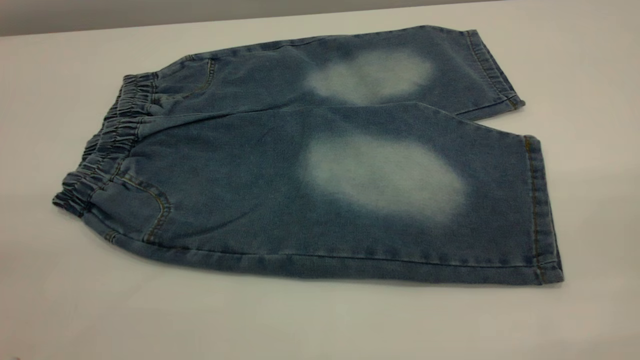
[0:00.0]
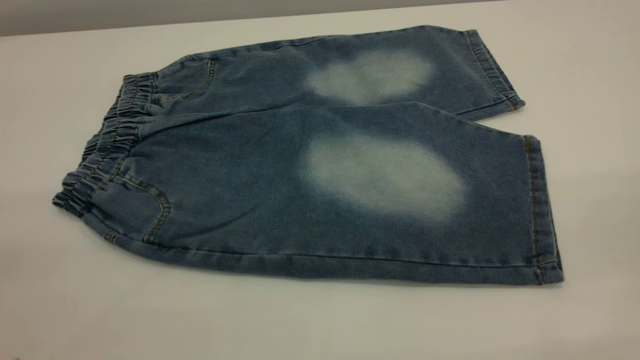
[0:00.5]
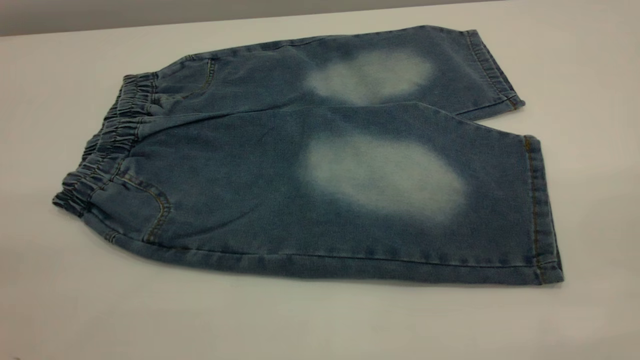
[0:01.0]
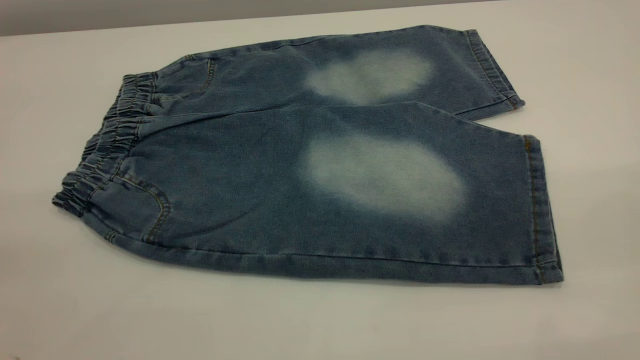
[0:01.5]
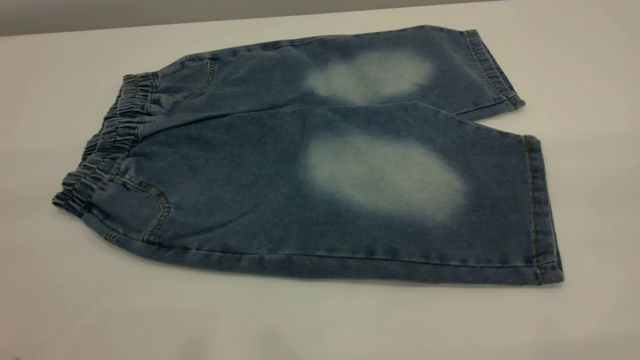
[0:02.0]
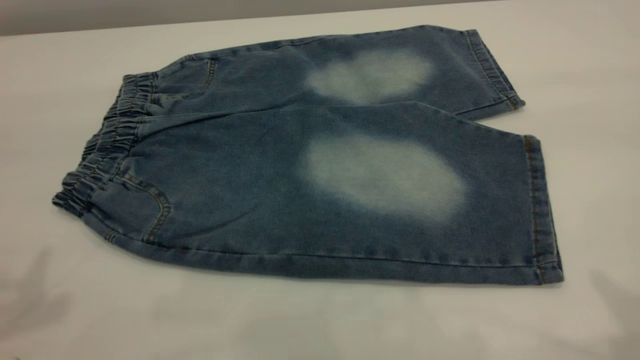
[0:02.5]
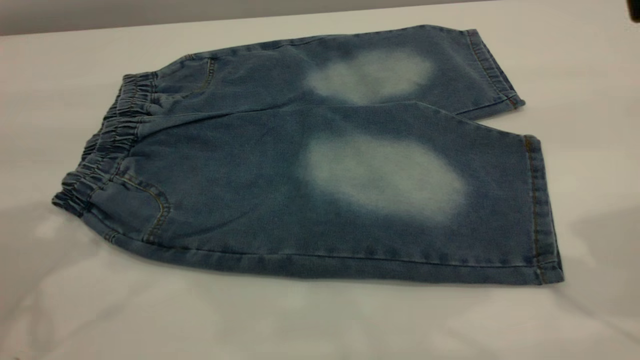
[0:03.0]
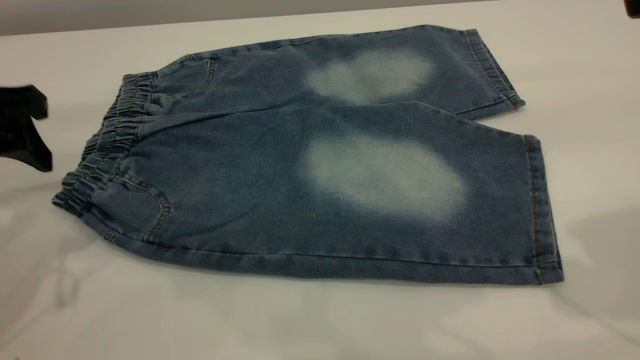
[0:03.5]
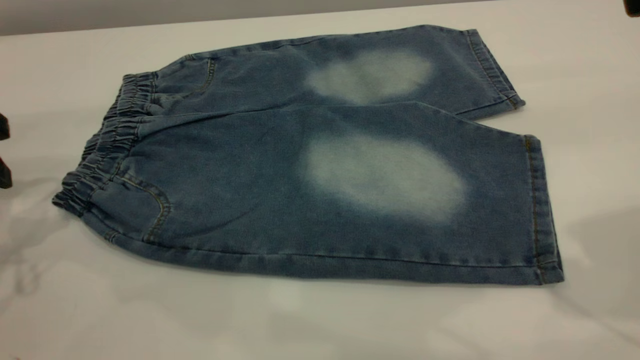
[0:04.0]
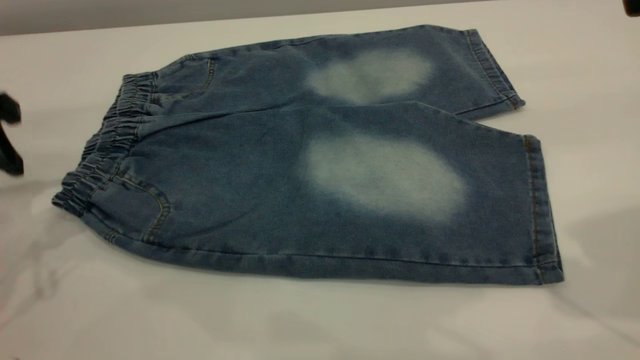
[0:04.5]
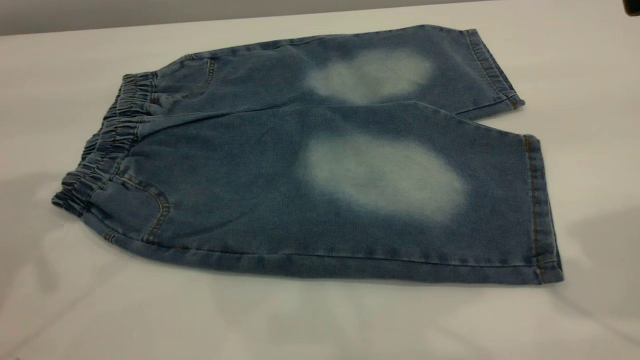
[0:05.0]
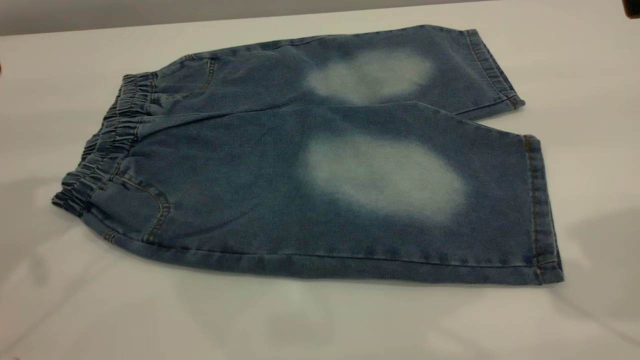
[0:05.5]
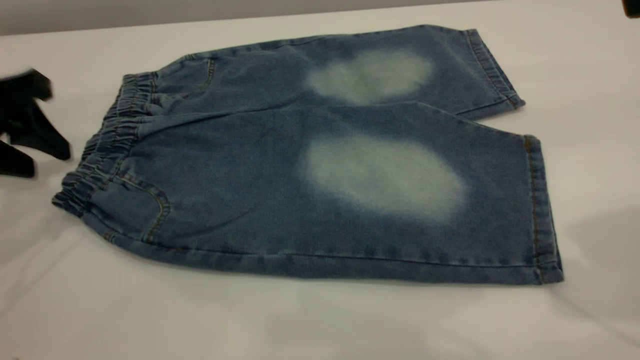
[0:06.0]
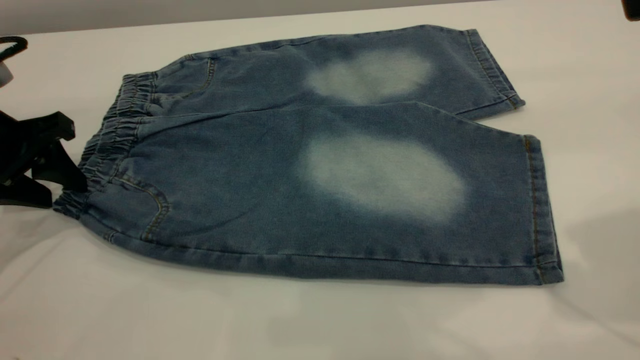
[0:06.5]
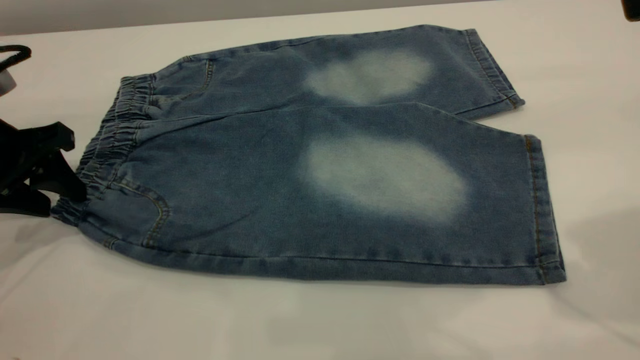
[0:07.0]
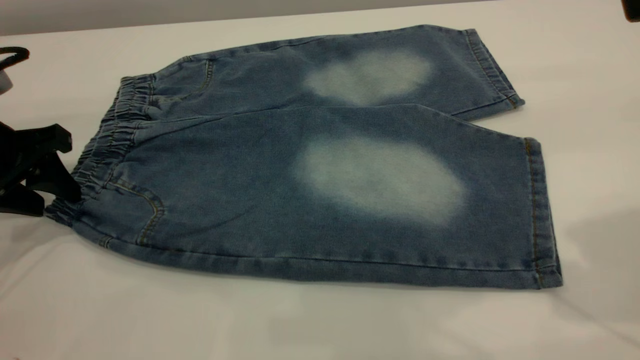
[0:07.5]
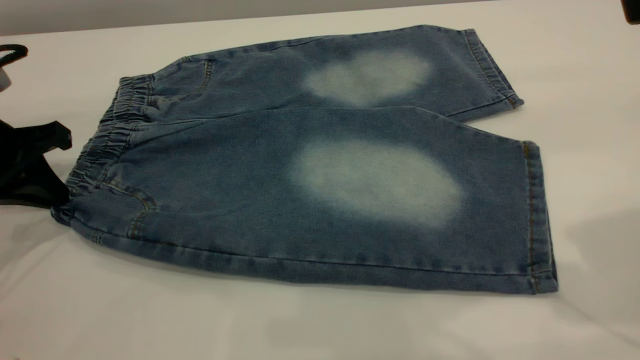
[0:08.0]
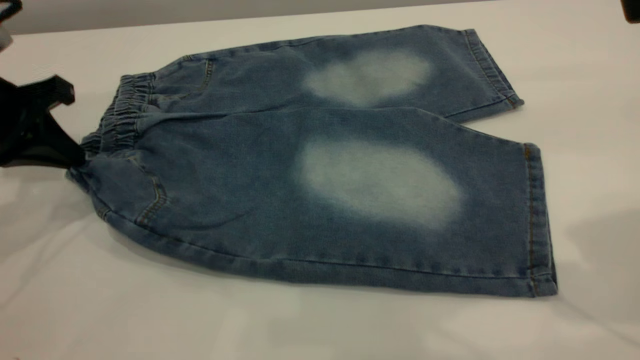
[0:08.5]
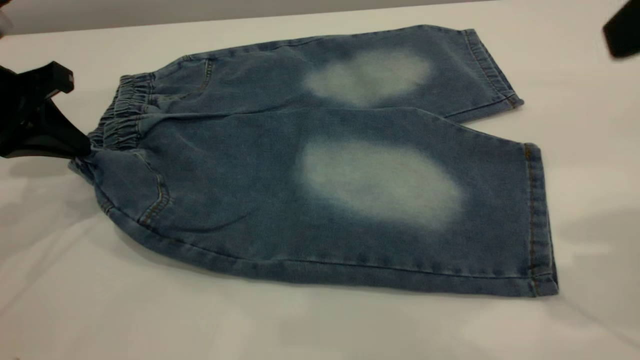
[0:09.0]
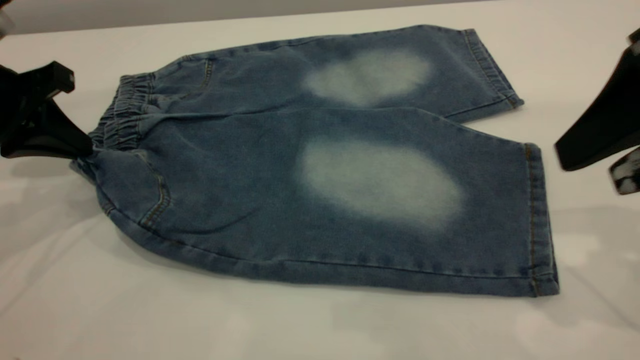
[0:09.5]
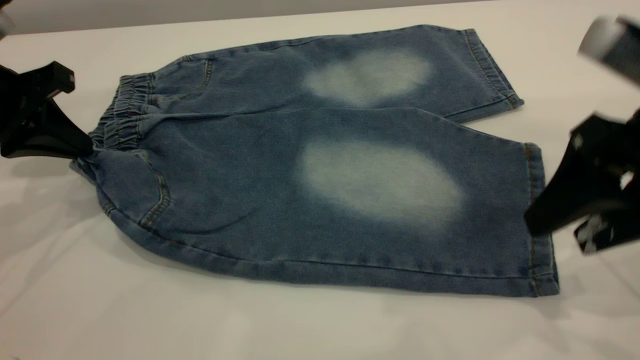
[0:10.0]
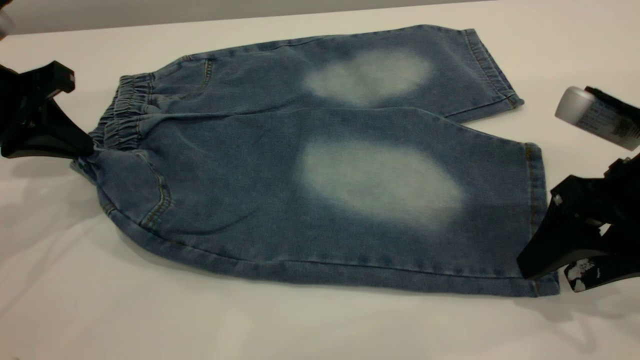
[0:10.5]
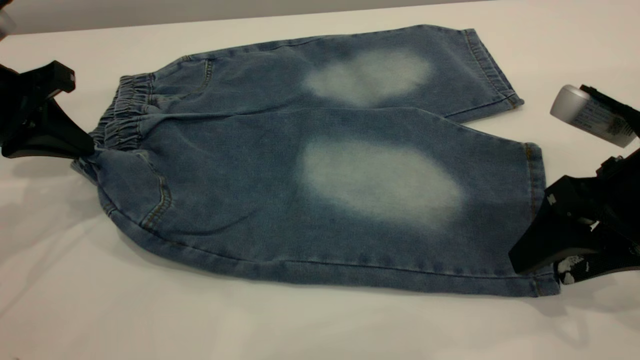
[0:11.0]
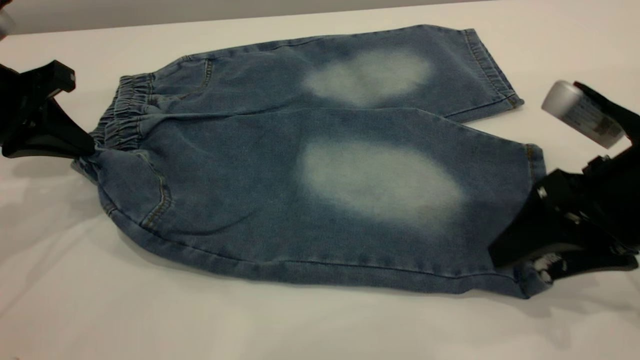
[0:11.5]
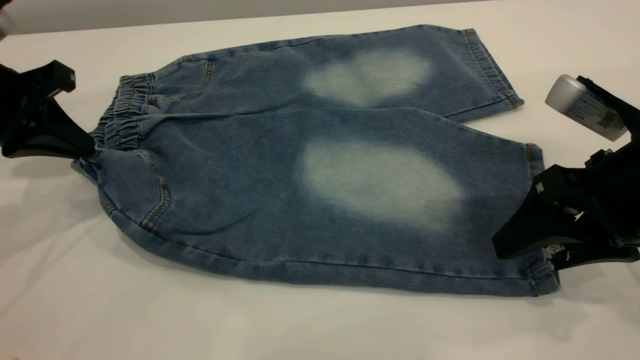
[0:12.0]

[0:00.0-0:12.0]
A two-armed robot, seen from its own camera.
0:02.0 to 0:04.0: The left gripper travels forward and downward by some 30 cm.
0:04.0 to 0:06.0: The left gripper goes upward and returns, approximately 10 cm each way.
0:06.0 to 0:08.0: The left gripper closes its fingers.
0:08.0 to 0:10.0: The right gripper shifts some 15 cm downward.
0:10.0 to 0:12.0: The right gripper ends up some 5 cm from where it was.

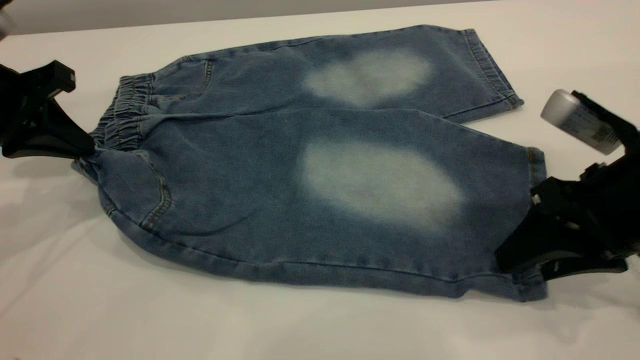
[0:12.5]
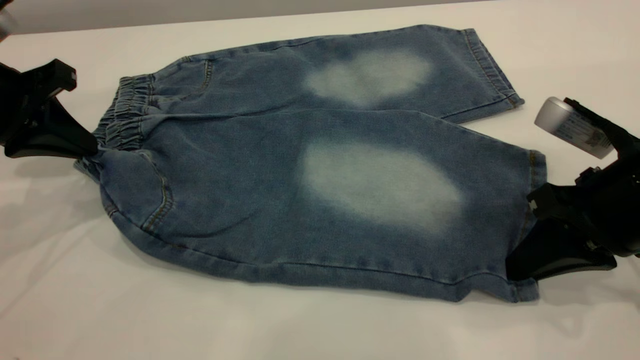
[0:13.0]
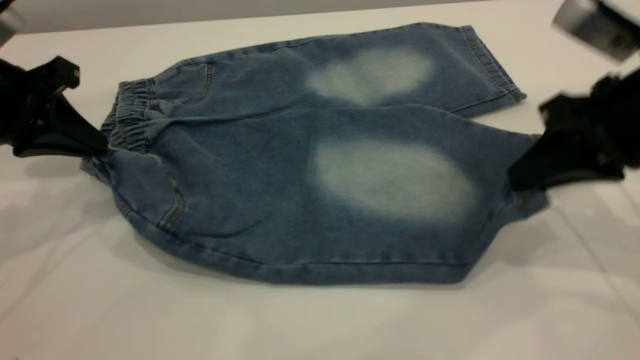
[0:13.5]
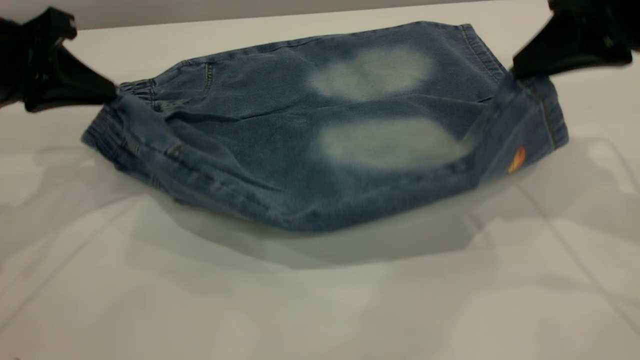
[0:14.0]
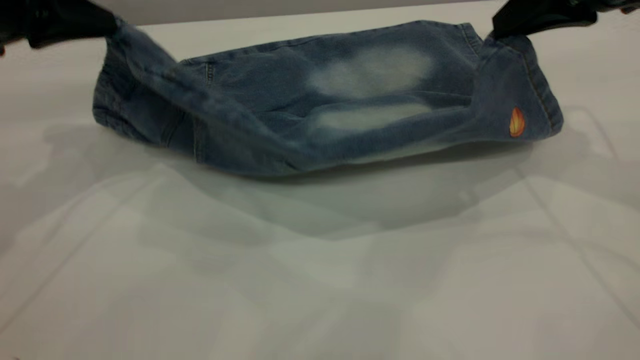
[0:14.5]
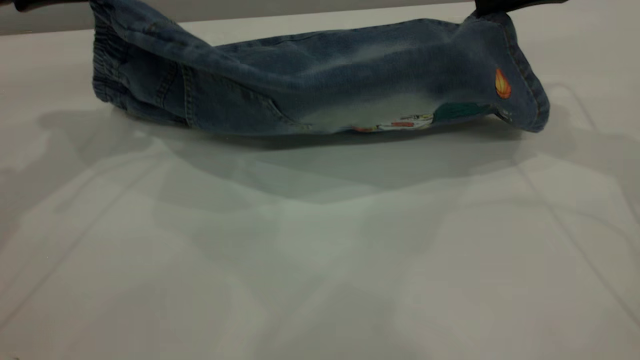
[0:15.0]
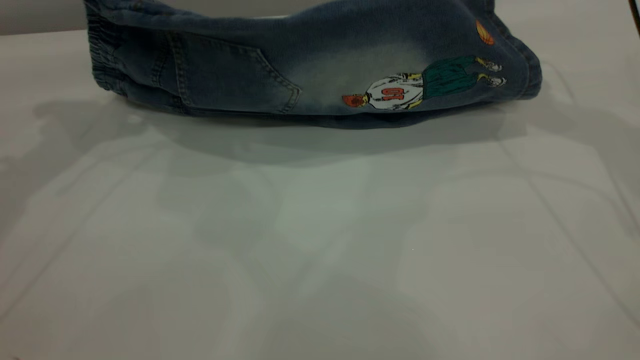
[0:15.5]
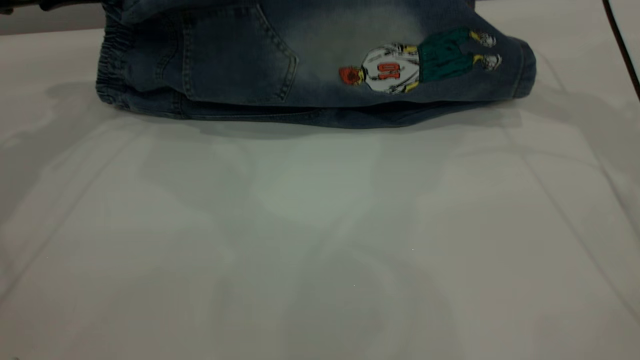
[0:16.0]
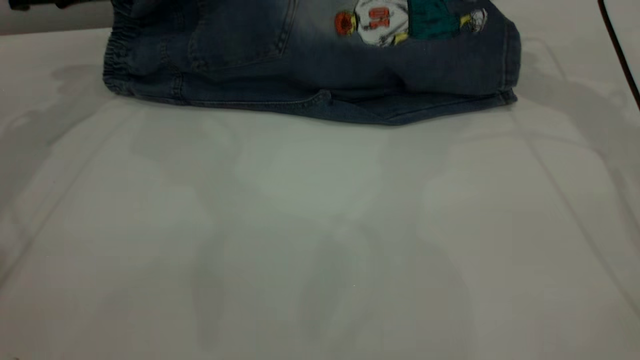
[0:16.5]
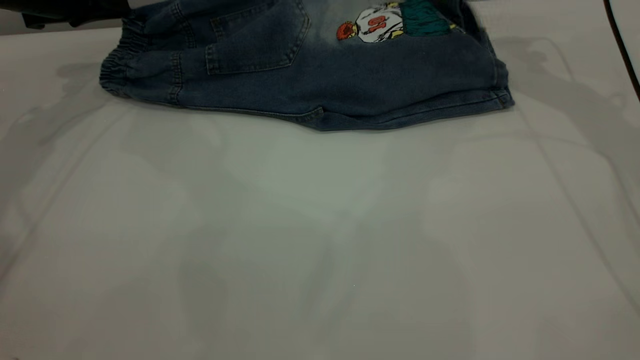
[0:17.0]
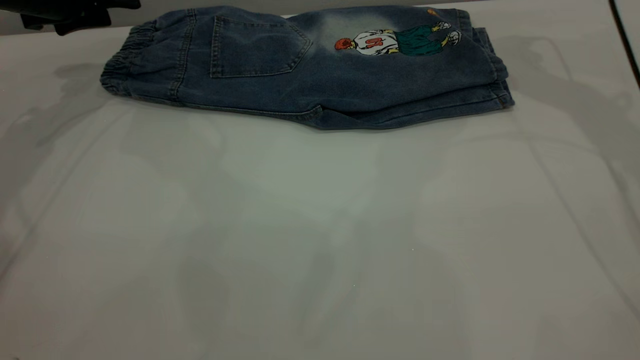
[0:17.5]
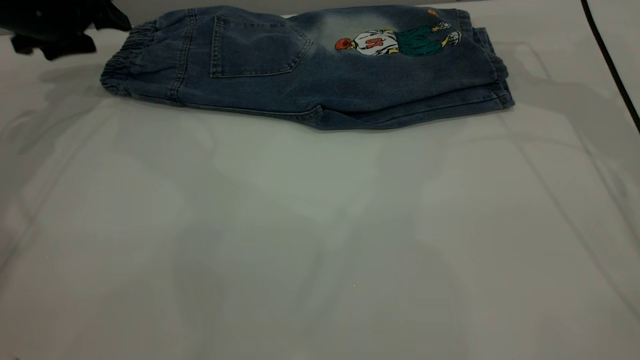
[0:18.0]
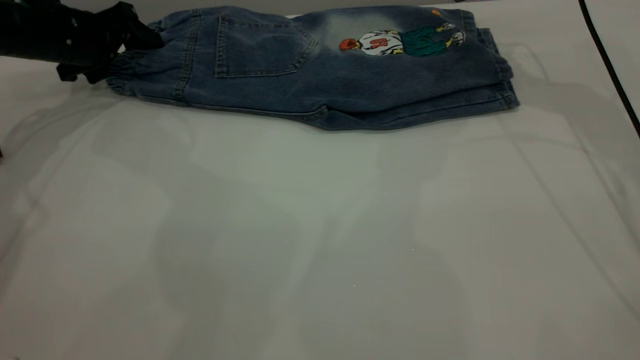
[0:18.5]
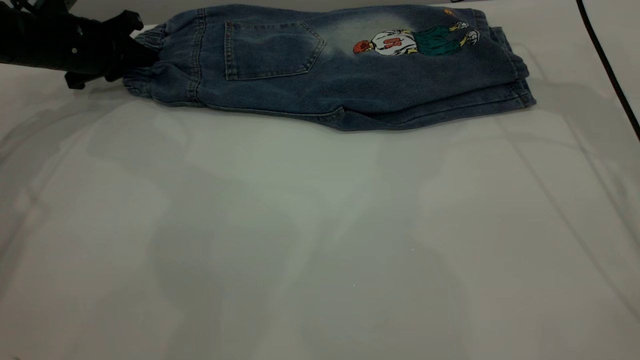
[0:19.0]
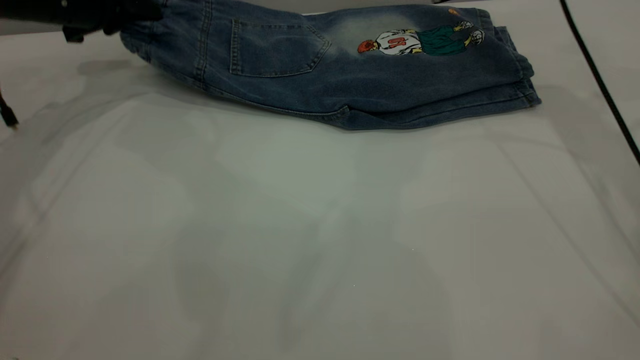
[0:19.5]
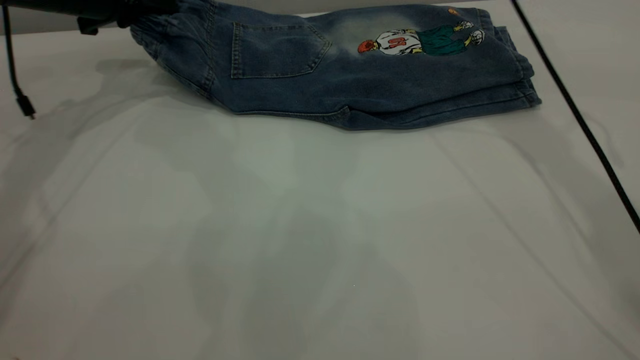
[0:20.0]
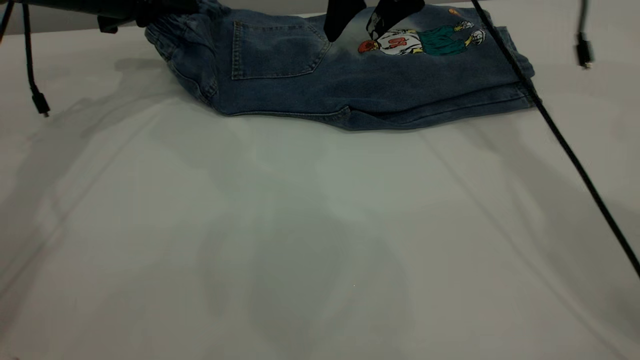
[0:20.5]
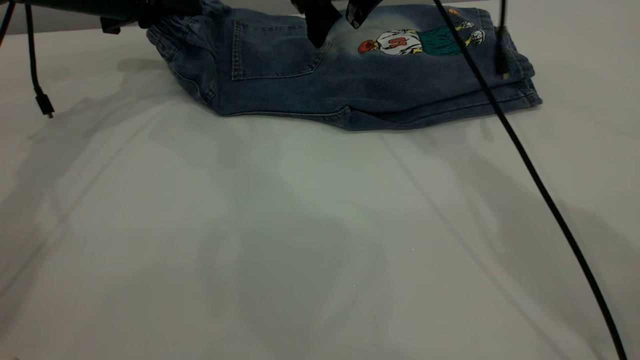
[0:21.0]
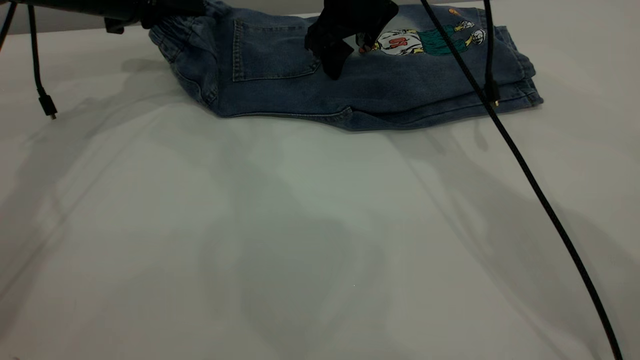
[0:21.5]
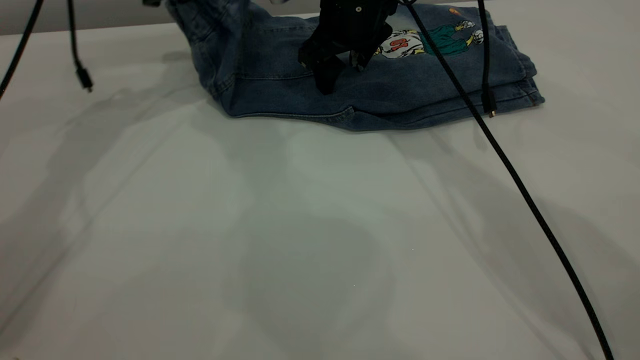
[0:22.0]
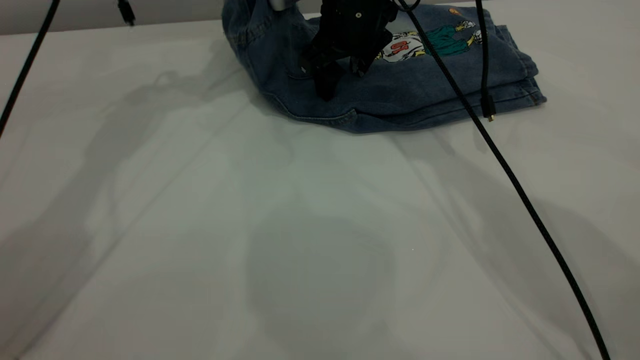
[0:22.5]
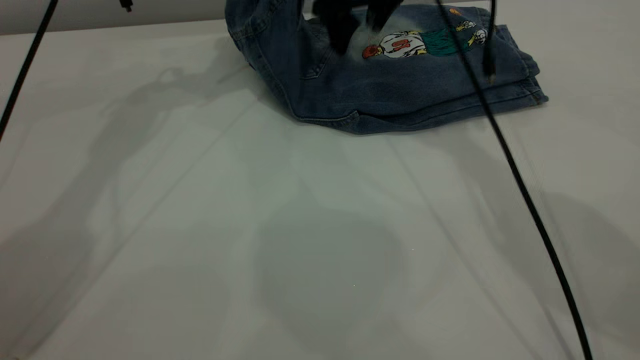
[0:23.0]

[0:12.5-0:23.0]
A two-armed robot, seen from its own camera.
Step, 0:12.5 to 0:17.5: Fold the bottom of the pants upward.
0:12.5 to 0:14.5: The left gripper moves upward, roughly 5 cm, while the right gripper travels upward and forward by approximately 20 cm, and closes its fingers.
0:14.5 to 0:16.5: Both grippers move forward, some 15 cm.
0:16.5 to 0:19.0: The left gripper travels downward by some 10 cm, and opens and closes again, while the right gripper opens up.
0:19.0 to 0:21.0: The left gripper goes roughly 10 cm upward and to the right, while the right gripper moves to the left, some 20 cm.
0:21.0 to 0:23.0: The left gripper travels to the right and upward by about 15 cm.
